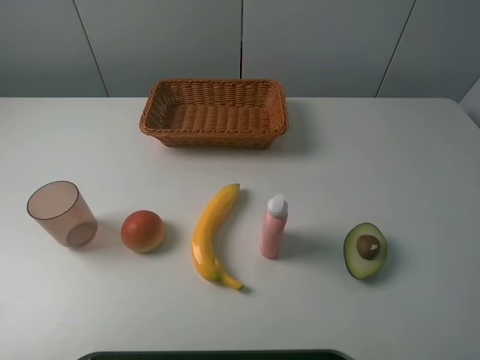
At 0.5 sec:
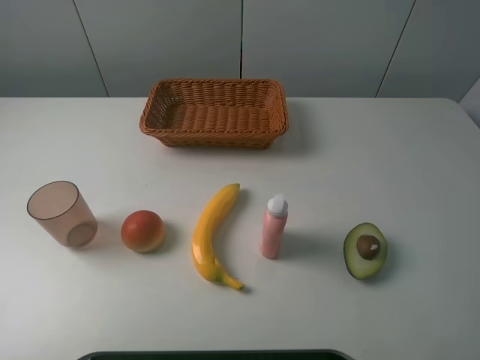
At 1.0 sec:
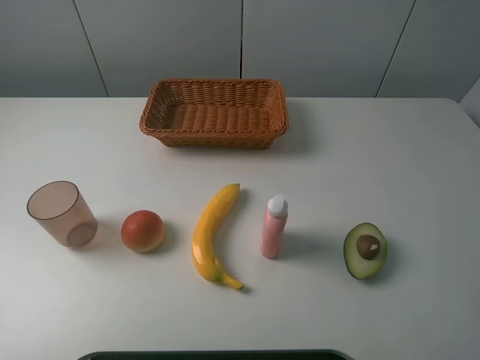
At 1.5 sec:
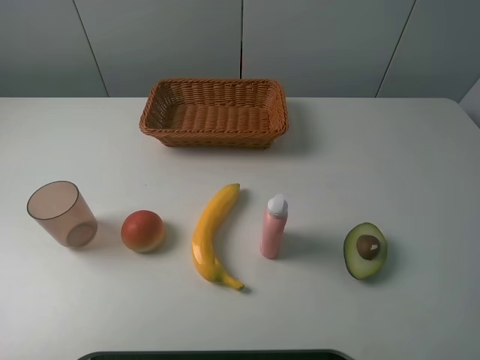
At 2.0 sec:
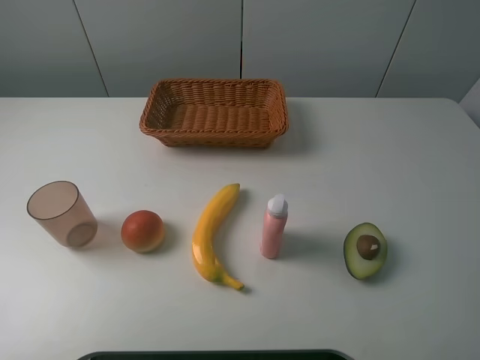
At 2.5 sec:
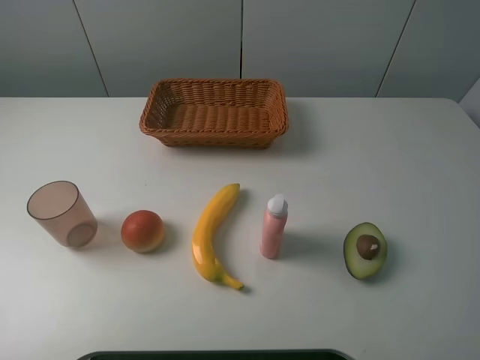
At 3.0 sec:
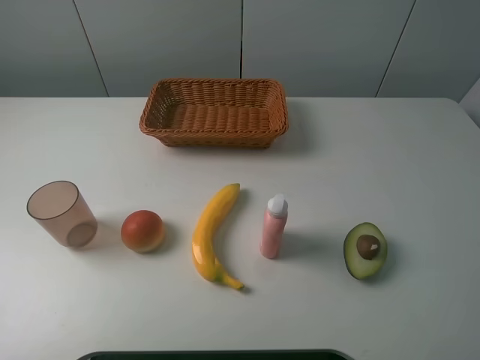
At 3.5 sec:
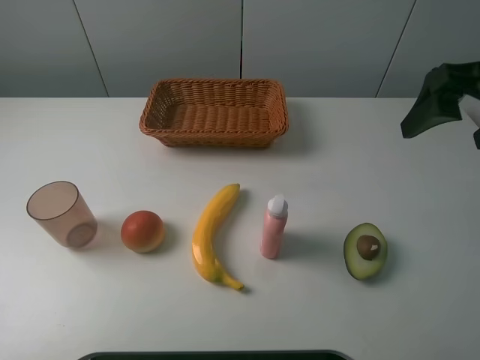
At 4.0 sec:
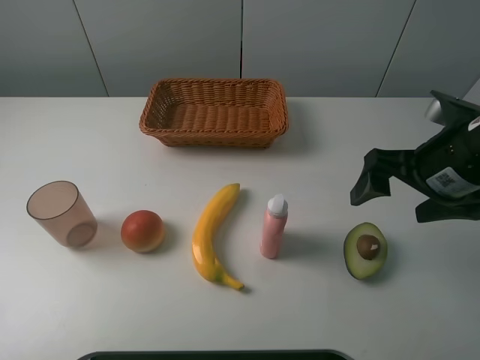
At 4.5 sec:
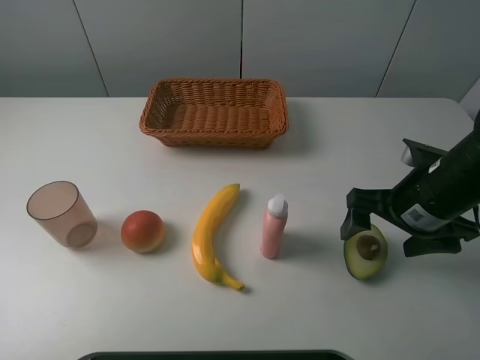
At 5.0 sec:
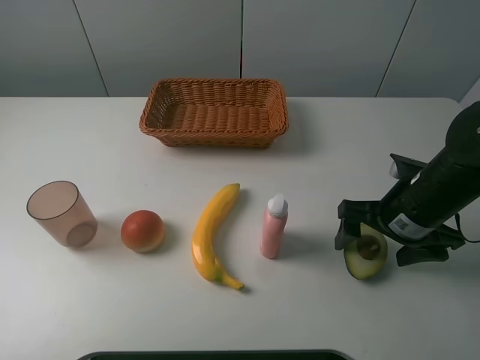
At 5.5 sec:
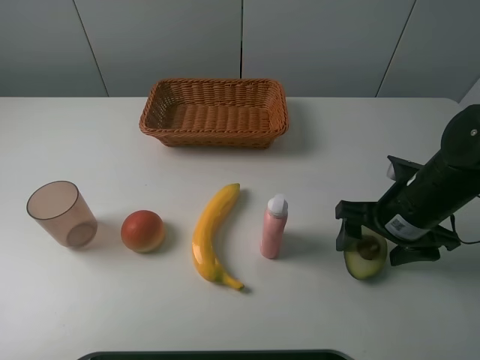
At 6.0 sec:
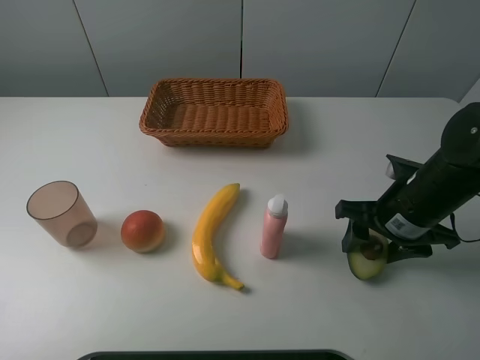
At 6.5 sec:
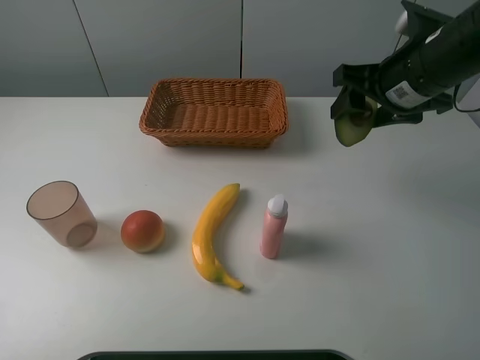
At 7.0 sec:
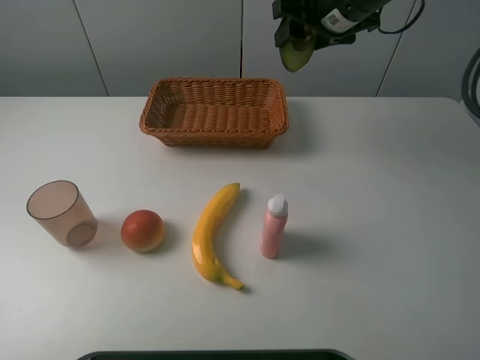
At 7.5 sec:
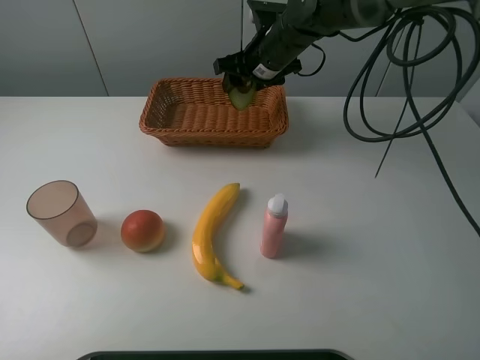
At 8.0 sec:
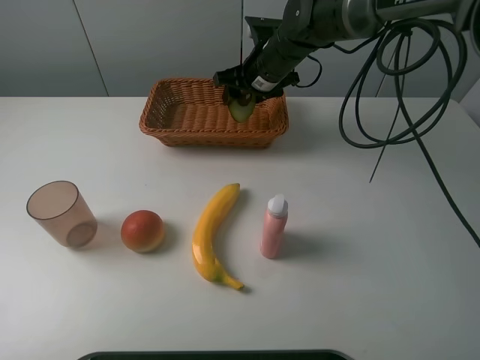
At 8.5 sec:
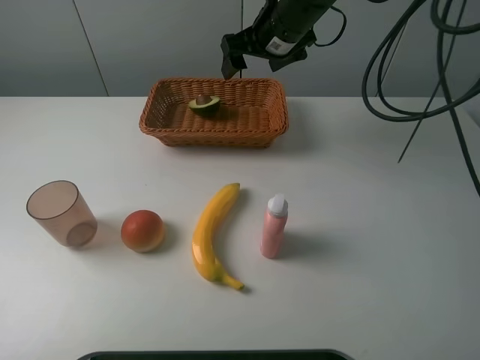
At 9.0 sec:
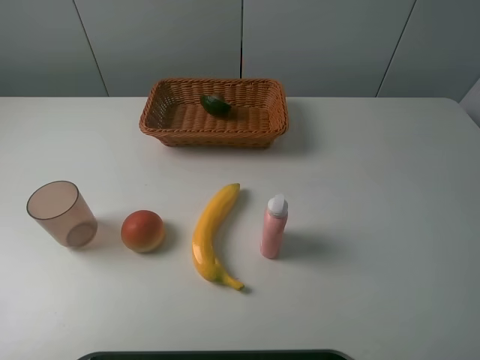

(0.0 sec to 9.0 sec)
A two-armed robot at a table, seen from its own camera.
Task of the whole recording: randomly pick up an item from the table and put it in the basket.
Step, 0.0 sec - 5.5 sec: Grasp the avocado with the right gripper.
Step, 6.0 sec - 8.0 sec: Place the avocado into the basket with the right gripper.
0.0 sec - 2.0 sec: Neither gripper changes place.
2.0 sec - 4.5 sec: The right gripper is displaced forward and downward by about 25 cm.
4.5 sec - 7.0 sec: The right gripper moves forward, upward and to the left, about 25 cm, and closes.
7.0 sec - 9.0 sec: The right gripper is displaced upward and backward by approximately 20 cm, and opens.

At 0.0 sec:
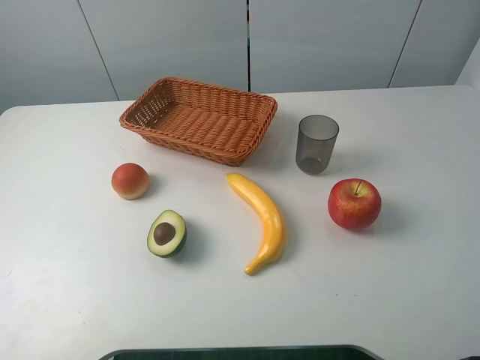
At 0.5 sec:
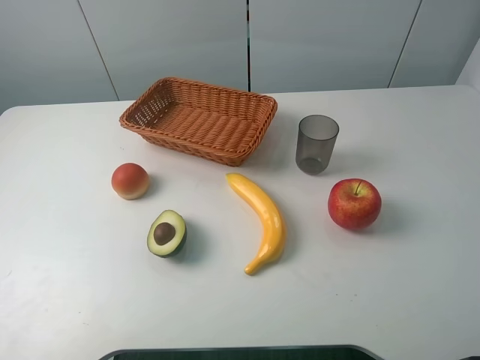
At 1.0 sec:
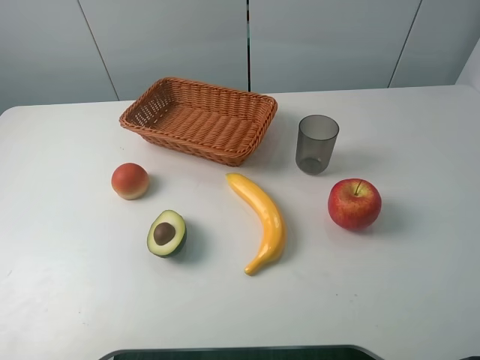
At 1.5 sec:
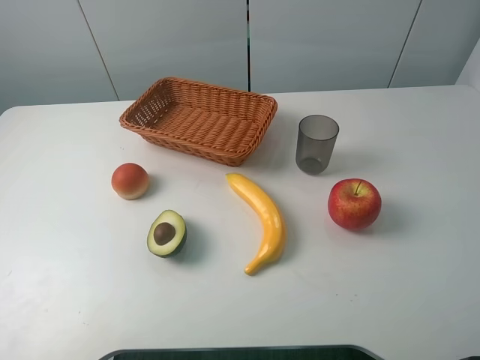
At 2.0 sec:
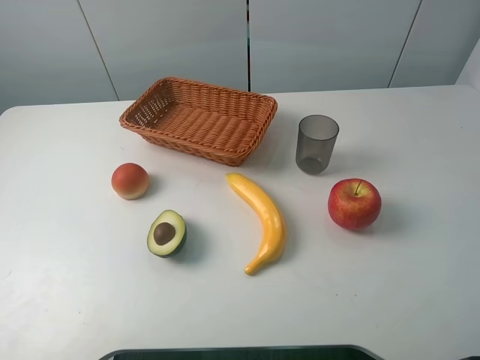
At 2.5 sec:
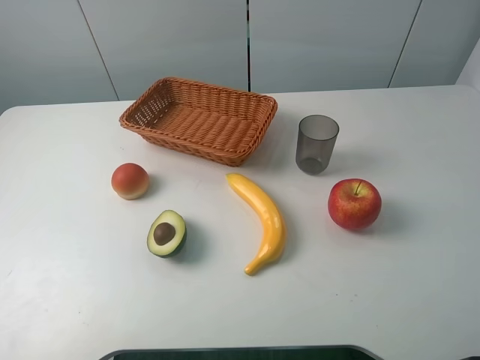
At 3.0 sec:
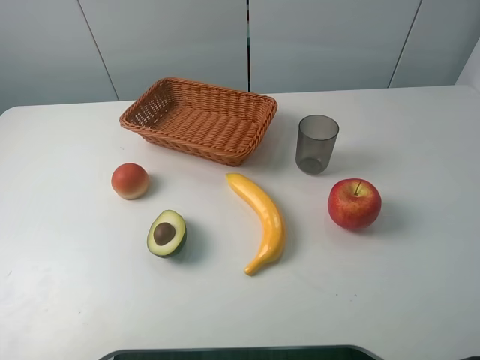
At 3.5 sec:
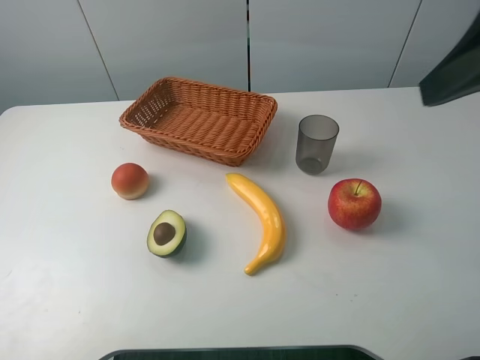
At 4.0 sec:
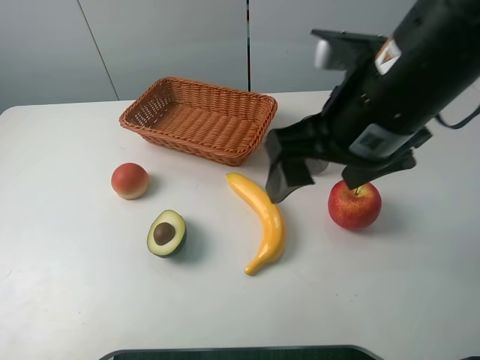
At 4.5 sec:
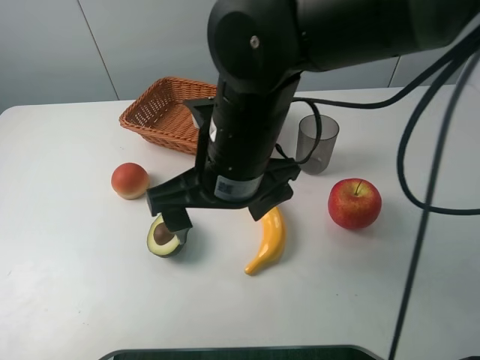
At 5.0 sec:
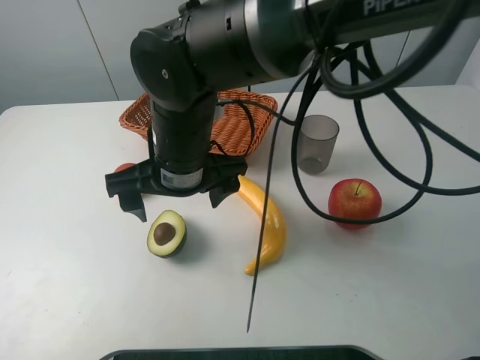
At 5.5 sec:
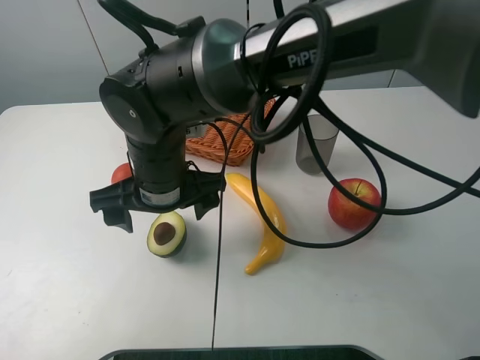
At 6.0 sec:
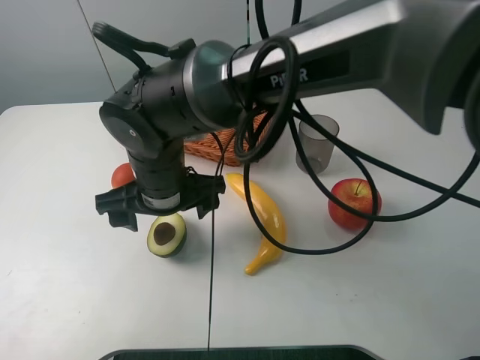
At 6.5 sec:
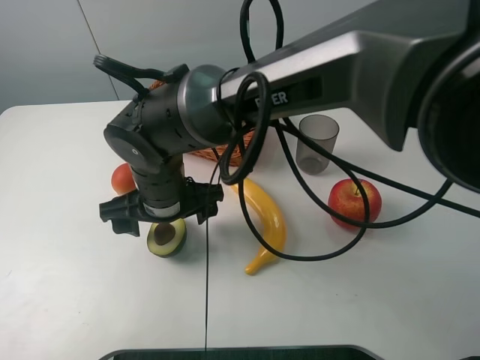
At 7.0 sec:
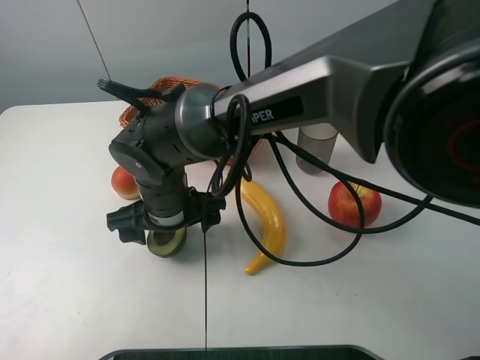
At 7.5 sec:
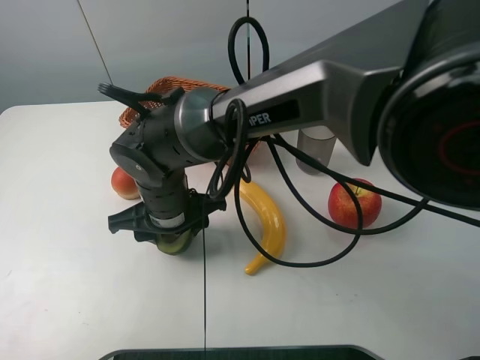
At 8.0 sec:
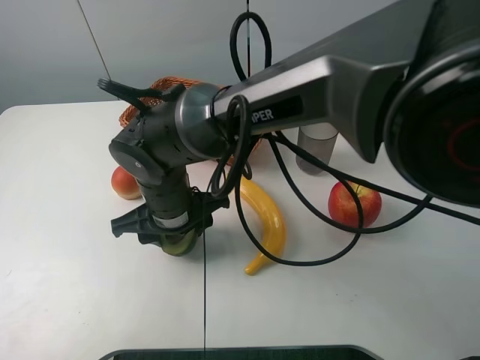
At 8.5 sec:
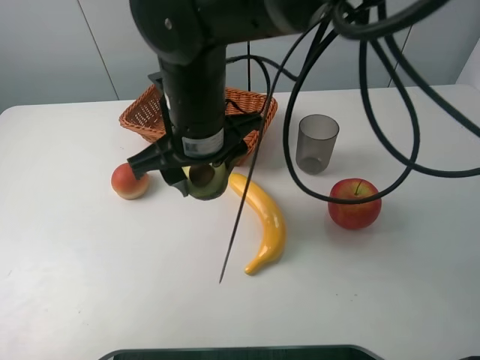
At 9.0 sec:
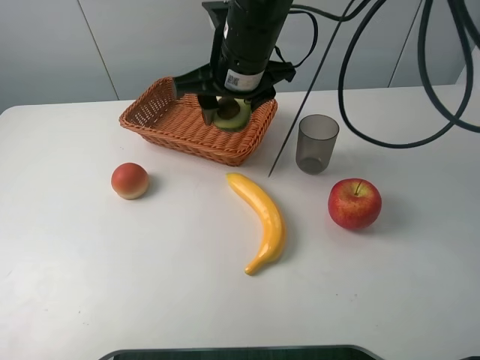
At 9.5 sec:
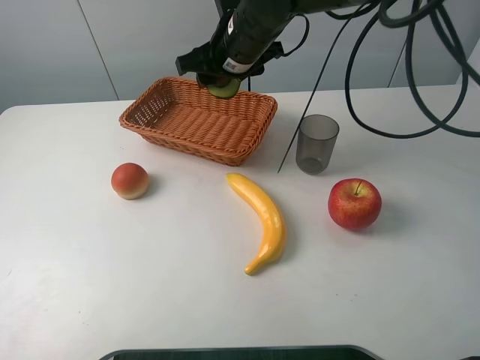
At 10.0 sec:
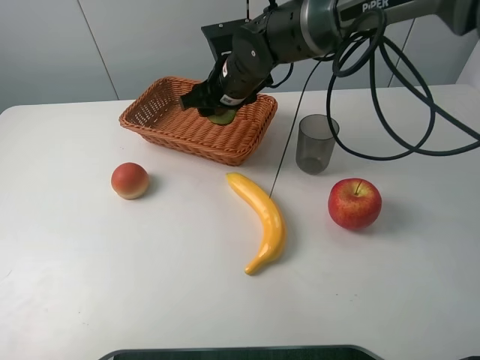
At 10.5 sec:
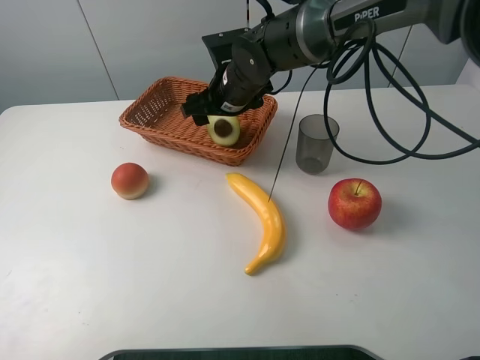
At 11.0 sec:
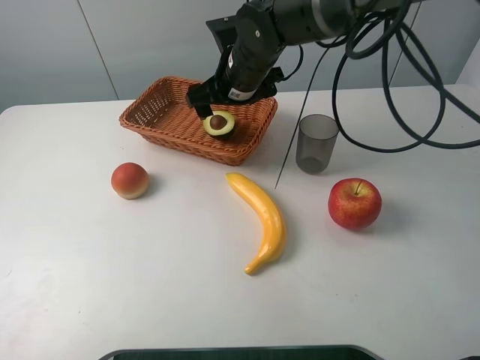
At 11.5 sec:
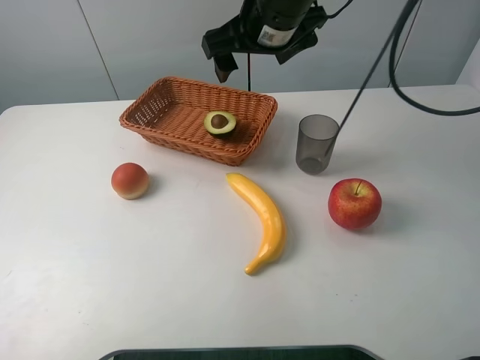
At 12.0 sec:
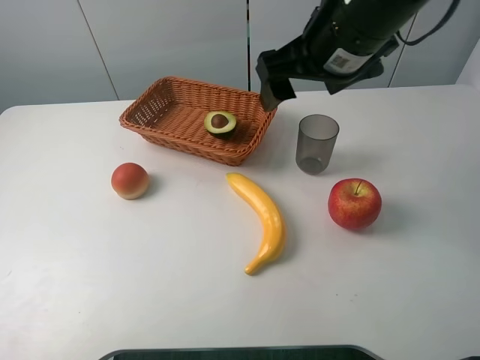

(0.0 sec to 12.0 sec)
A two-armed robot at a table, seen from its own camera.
Task of the whole recording: randomly pick up an item from the table and put it in the basket.
Step, 0.0 sec - 7.5 sec: Grasp the avocado with the right gripper.
Step, 8.0 sec - 11.0 sec: Place the avocado into the basket with the right gripper.
2.0 sec - 4.0 sec: The right gripper moves to the left and forward, roughly 25 cm.
4.0 sec - 6.0 sec: The right gripper heads to the left and downward, covering roughly 25 cm.
6.0 sec - 8.0 sec: The right gripper closes.
8.0 sec - 10.0 sec: The right gripper goes about 20 cm forward and to the right.
10.0 sec - 12.0 sec: The right gripper heads upward, backward and to the right, covering some 20 cm, and opens.

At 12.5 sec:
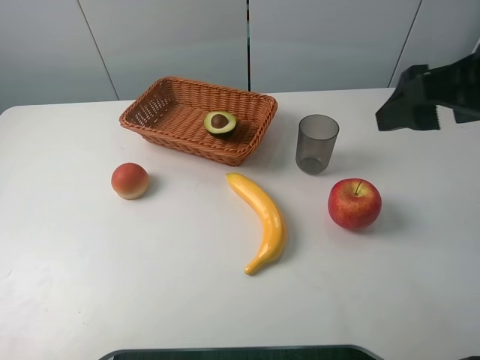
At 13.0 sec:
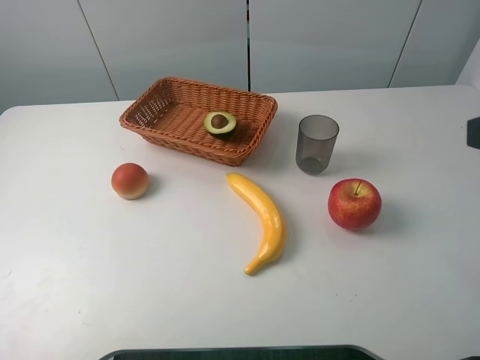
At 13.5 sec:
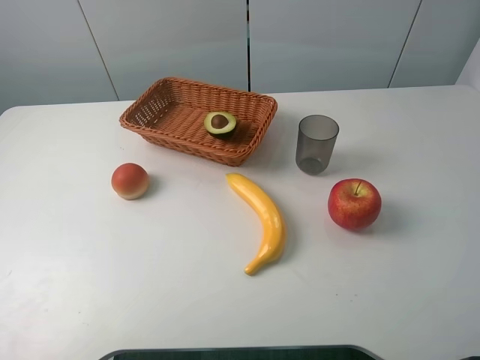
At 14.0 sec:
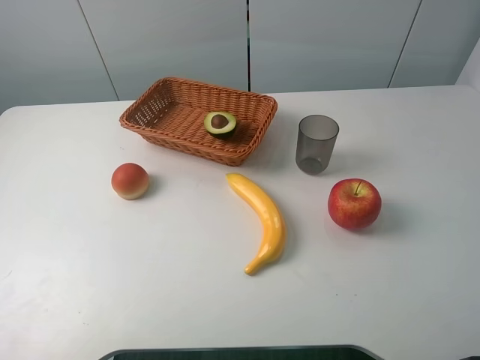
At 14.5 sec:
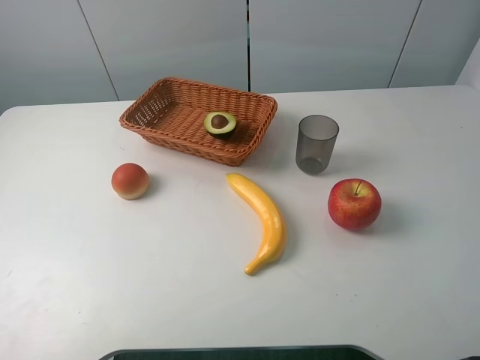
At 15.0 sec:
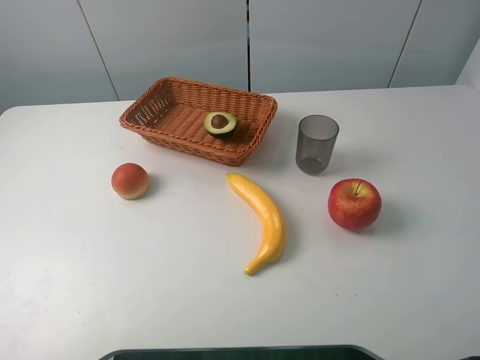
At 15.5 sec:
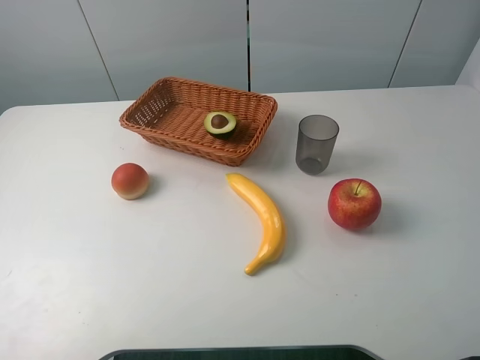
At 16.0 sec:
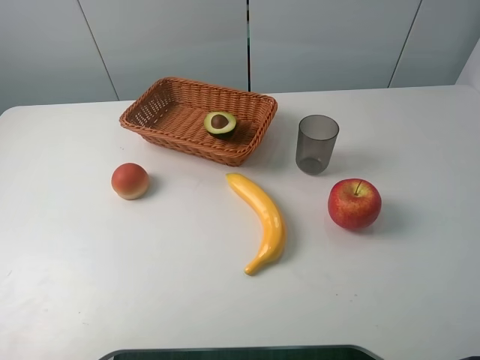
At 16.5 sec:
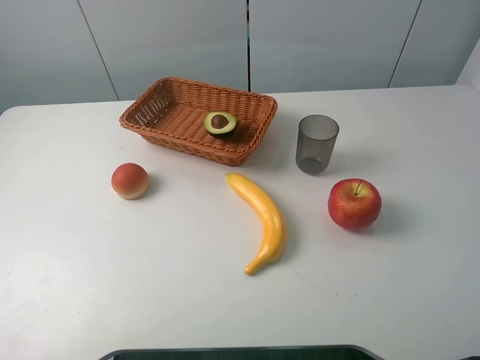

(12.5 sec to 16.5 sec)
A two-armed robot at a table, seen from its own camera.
Task of the whole recording: randomly pick up an item from the table and put it in the basket.
12.5 sec - 14.5 sec: The right gripper goes about 20 cm backward.
